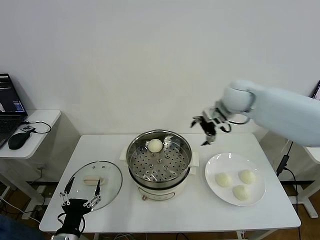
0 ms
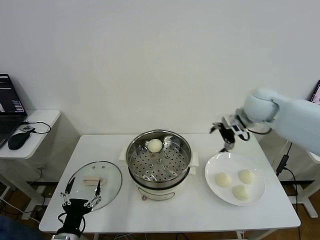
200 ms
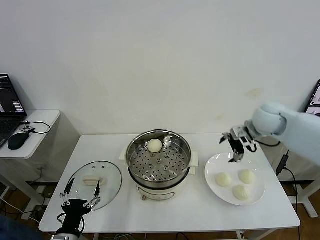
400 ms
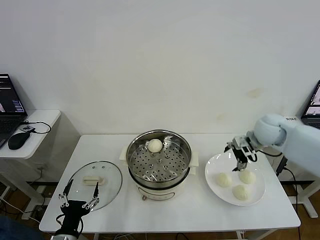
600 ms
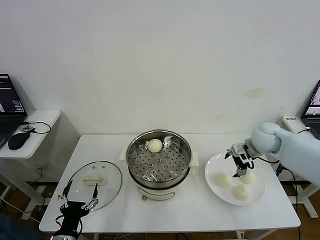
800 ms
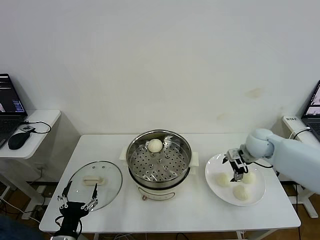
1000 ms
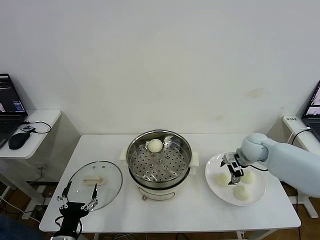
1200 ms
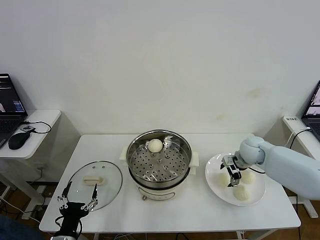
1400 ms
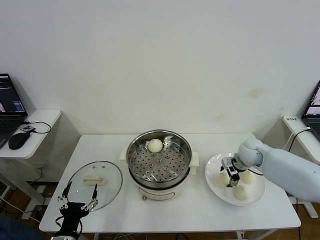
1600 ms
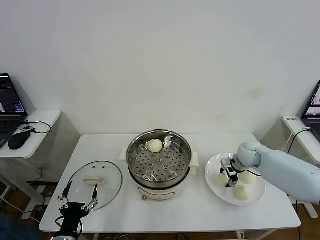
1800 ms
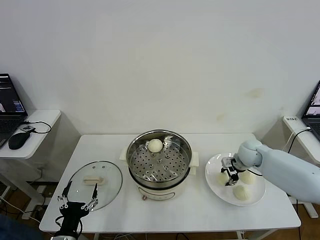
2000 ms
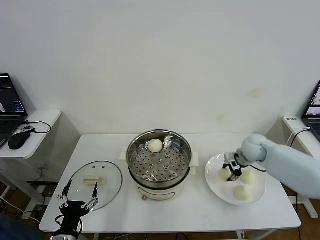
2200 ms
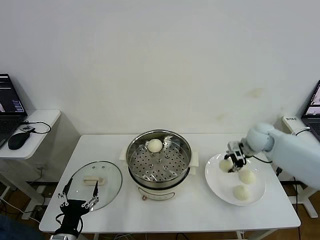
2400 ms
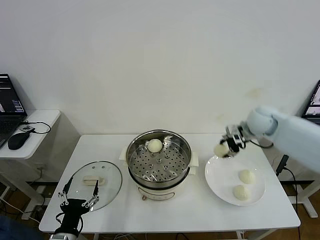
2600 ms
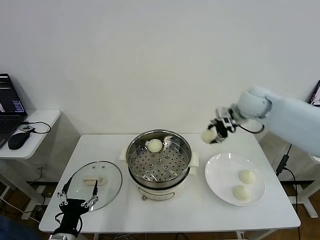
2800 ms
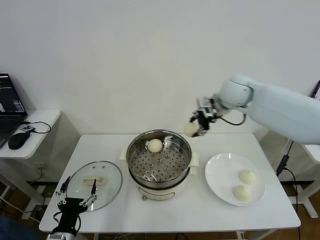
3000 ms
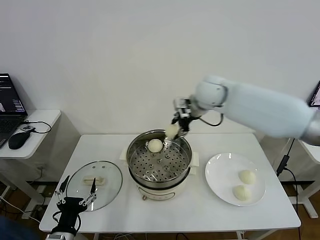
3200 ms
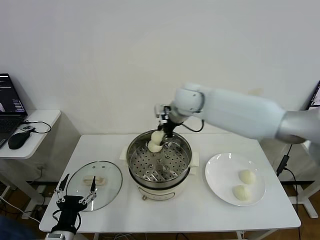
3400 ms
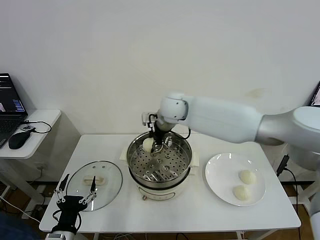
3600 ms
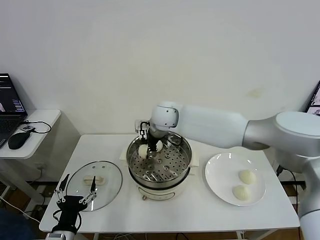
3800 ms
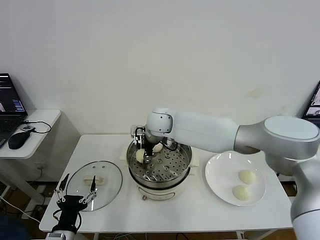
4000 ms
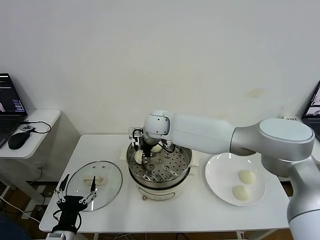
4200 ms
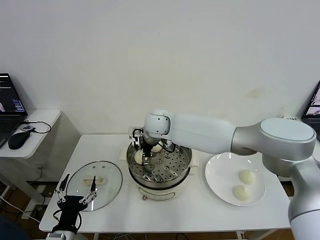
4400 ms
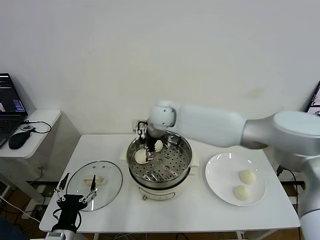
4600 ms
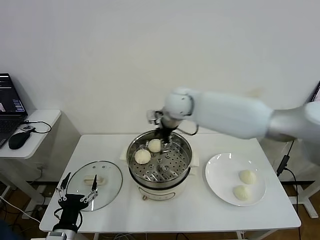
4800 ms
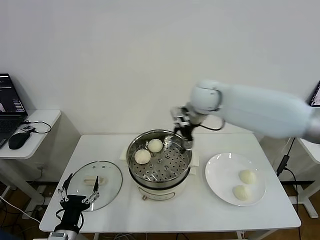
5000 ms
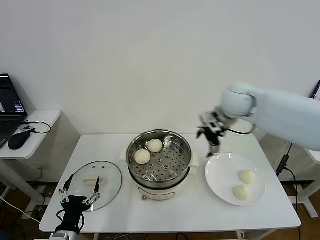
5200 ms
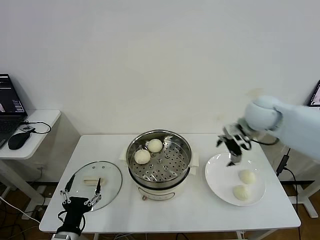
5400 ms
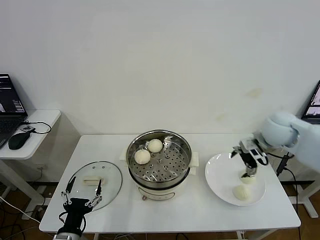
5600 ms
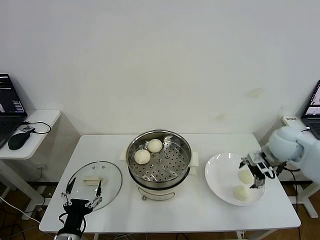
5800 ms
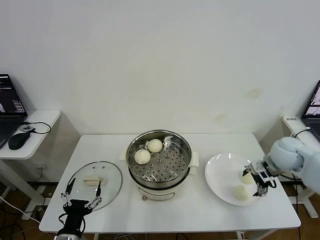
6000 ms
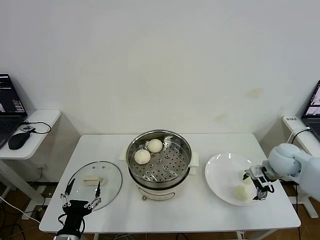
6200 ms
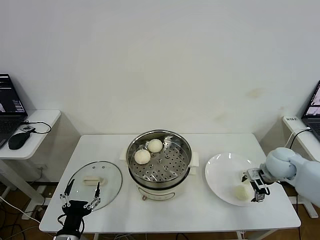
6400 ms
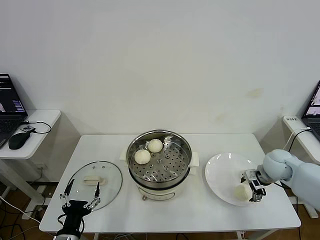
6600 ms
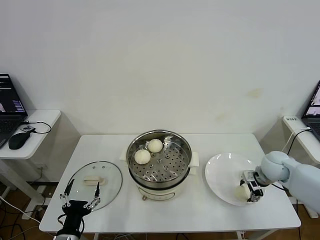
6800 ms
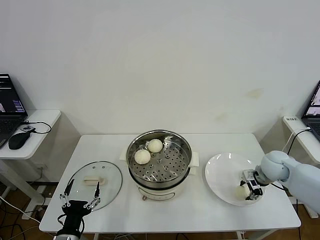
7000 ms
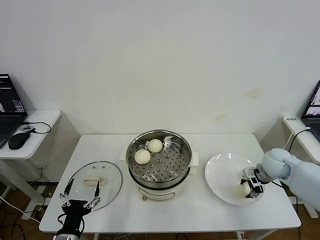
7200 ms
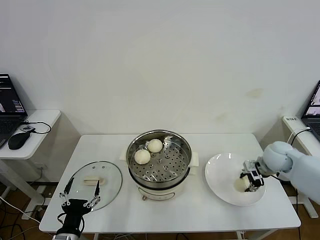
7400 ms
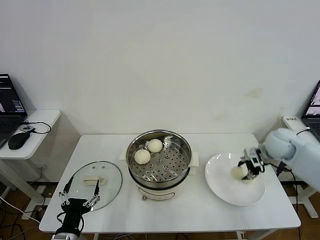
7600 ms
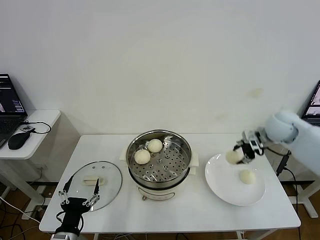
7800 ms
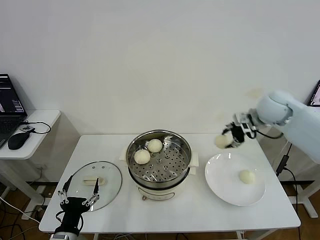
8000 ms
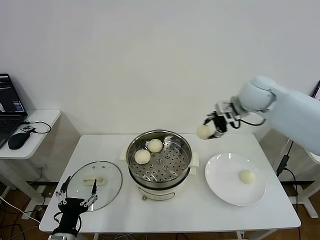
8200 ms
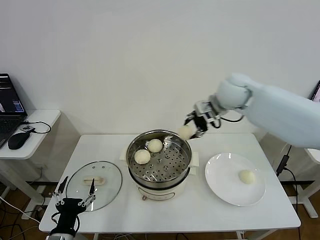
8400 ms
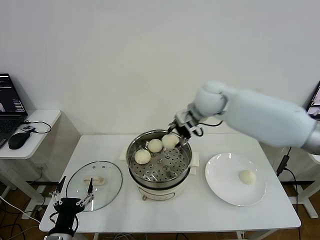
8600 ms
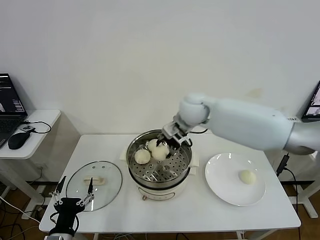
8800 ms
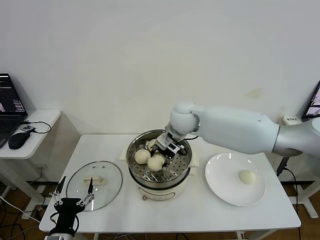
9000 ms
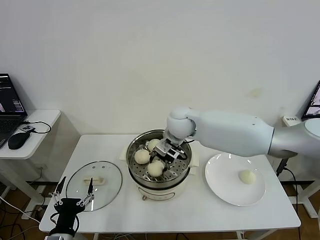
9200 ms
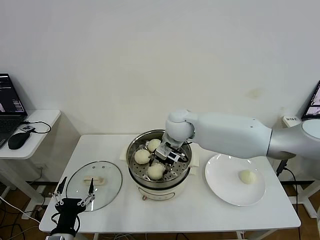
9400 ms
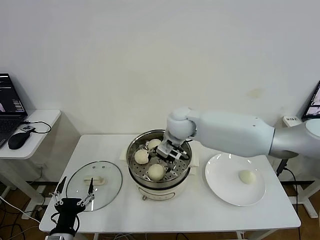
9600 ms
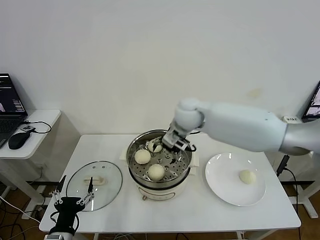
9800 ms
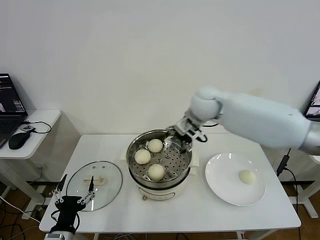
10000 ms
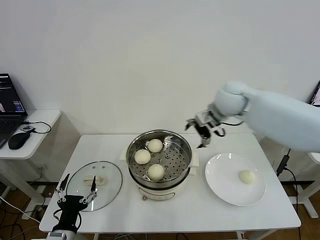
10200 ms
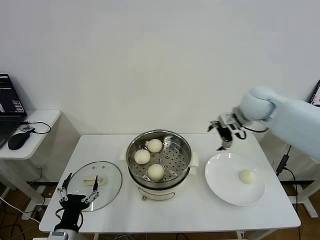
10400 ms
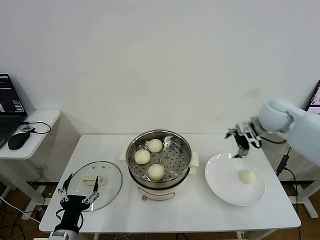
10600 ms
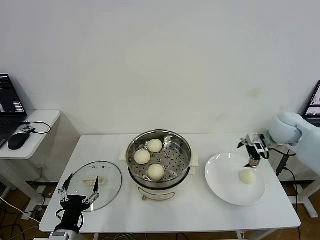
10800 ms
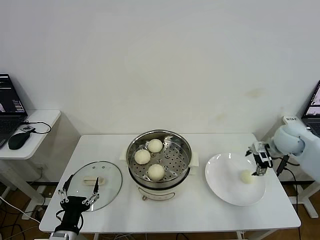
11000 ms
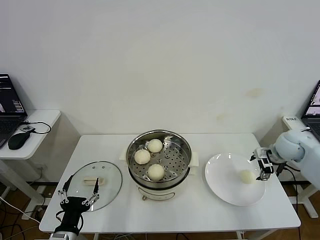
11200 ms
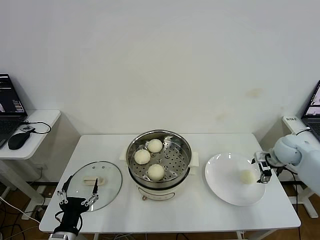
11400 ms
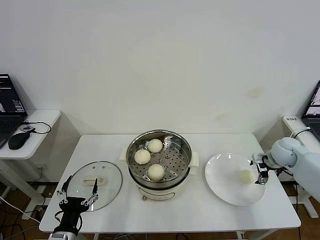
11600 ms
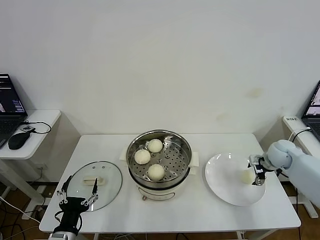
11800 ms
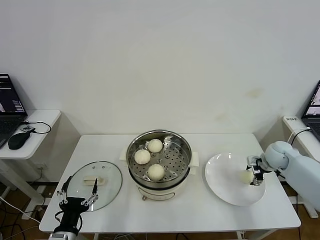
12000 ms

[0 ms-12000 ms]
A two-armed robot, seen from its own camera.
Step, 0 ms to 1800 ms: Grasp the baozi in the plate with right gripper.
Step, 2000 ms to 4400 ms: Place the baozi on the steamer with right gripper.
Step, 4600 ms to 7200 ms: Grasp the baozi in the plate with right gripper.
Step, 7400 ms to 9600 ms: Place the baozi on the steamer with right gripper.
0 ms to 1600 ms: The right gripper moves downward, about 20 cm, and closes.
1600 ms to 3000 ms: The right gripper moves upward and to the left, some 30 cm, and closes its fingers.
3000 ms to 4400 ms: The right gripper is displaced to the left and downward by roughly 20 cm, and opens its fingers.
4400 ms to 6000 ms: The right gripper moves to the right, some 40 cm.
6000 ms to 7600 ms: The right gripper is displaced forward by roughly 5 cm, and closes its fingers.
7600 ms to 9000 ms: The right gripper heads to the left, covering roughly 30 cm.
9000 ms to 10400 ms: The right gripper shifts about 25 cm to the right, and opens up.
10400 ms to 12000 ms: The right gripper moves downward and to the right, roughly 25 cm, and closes.

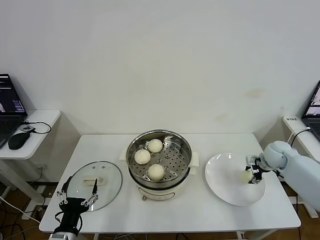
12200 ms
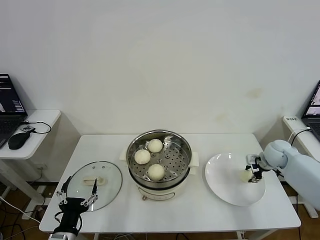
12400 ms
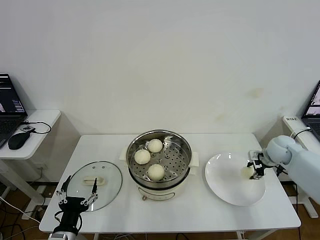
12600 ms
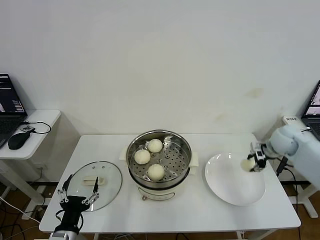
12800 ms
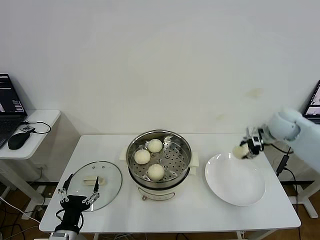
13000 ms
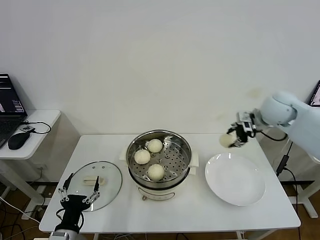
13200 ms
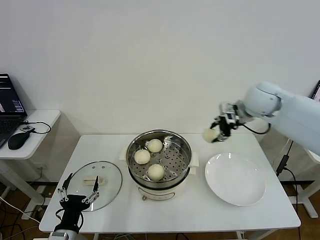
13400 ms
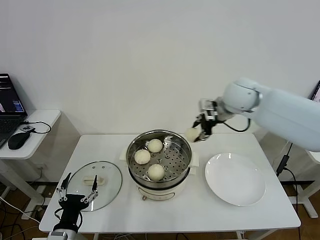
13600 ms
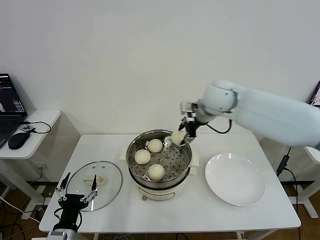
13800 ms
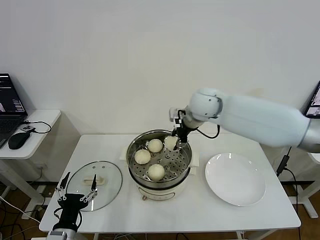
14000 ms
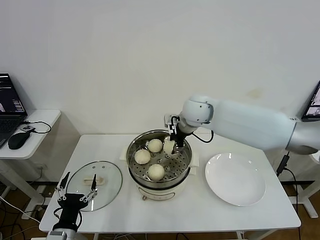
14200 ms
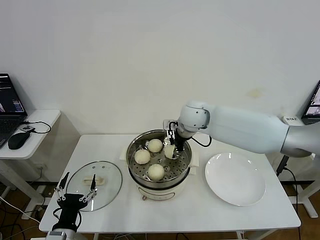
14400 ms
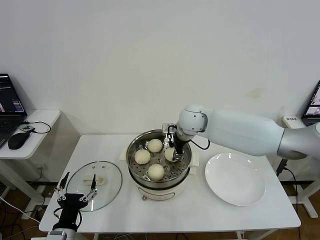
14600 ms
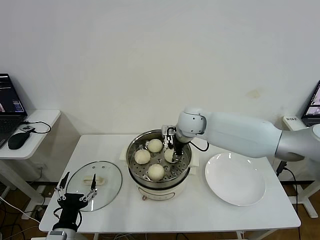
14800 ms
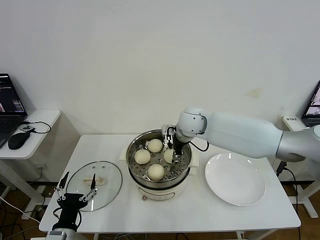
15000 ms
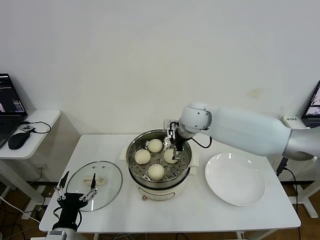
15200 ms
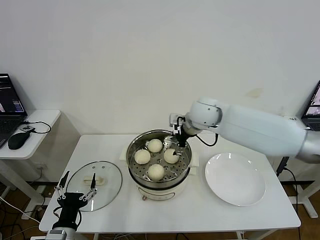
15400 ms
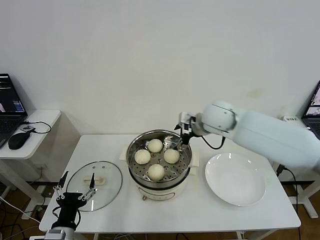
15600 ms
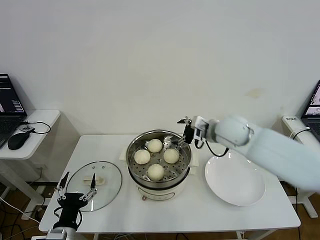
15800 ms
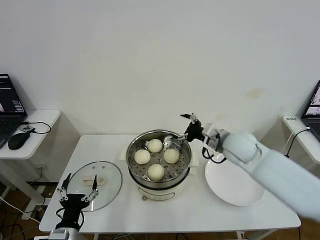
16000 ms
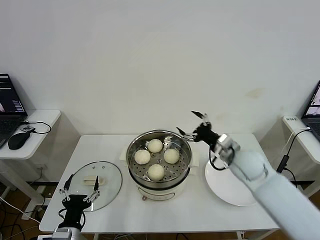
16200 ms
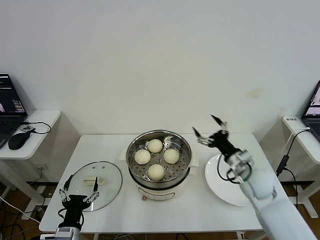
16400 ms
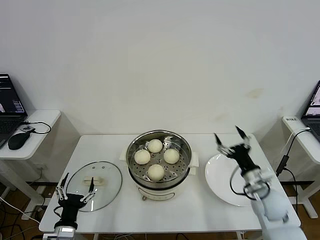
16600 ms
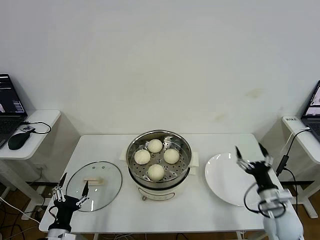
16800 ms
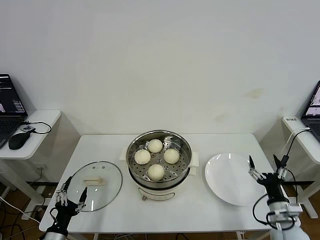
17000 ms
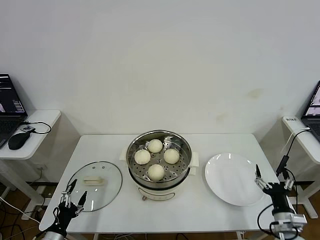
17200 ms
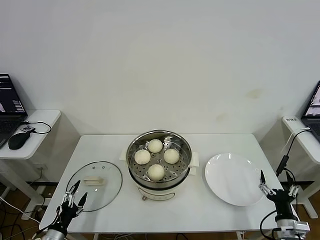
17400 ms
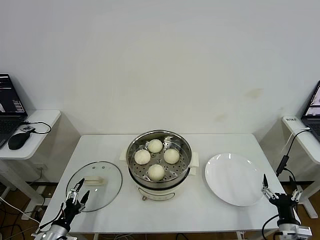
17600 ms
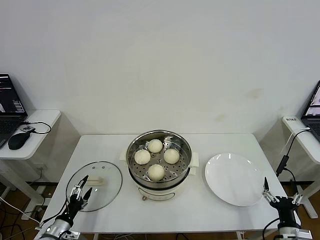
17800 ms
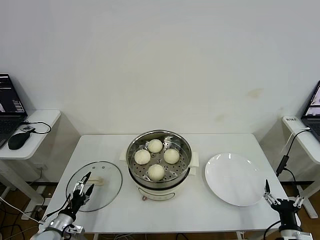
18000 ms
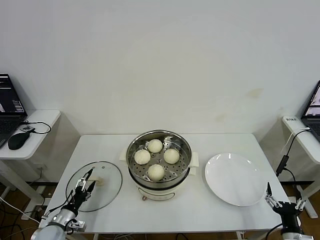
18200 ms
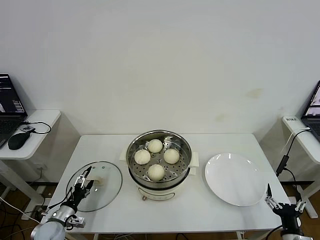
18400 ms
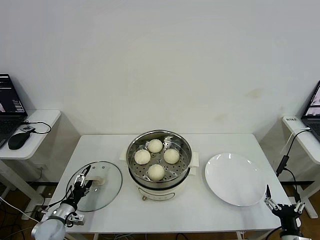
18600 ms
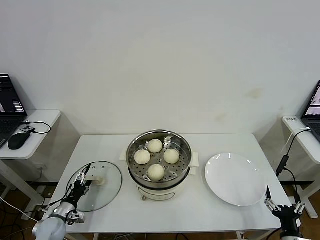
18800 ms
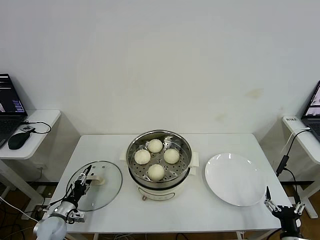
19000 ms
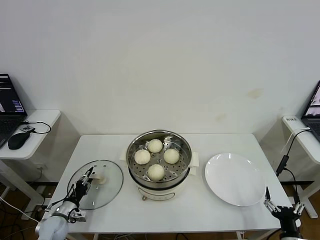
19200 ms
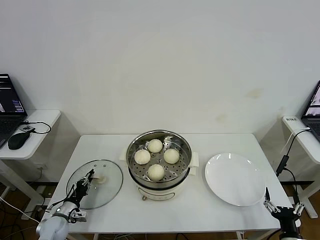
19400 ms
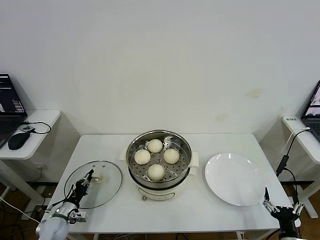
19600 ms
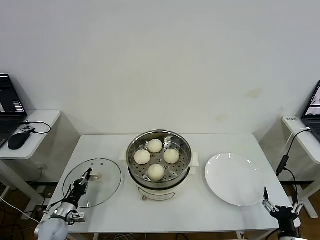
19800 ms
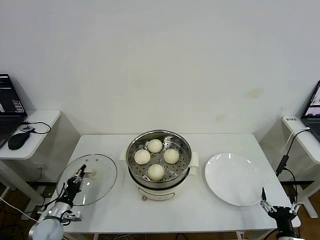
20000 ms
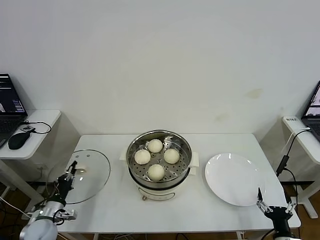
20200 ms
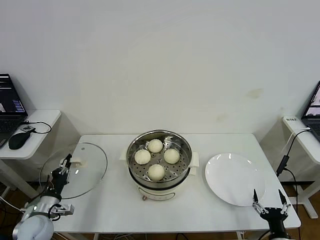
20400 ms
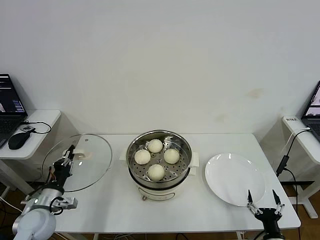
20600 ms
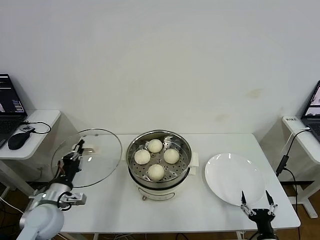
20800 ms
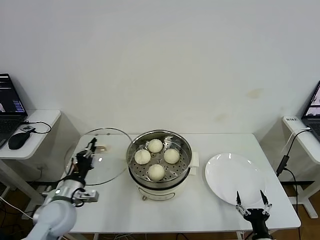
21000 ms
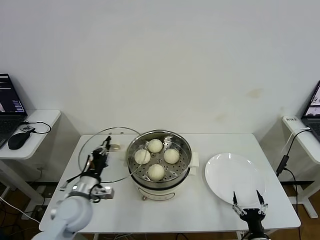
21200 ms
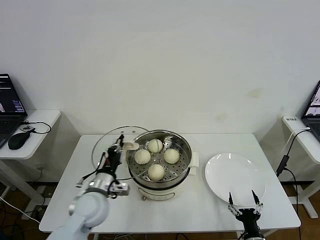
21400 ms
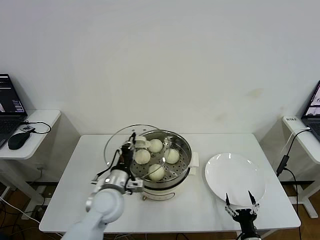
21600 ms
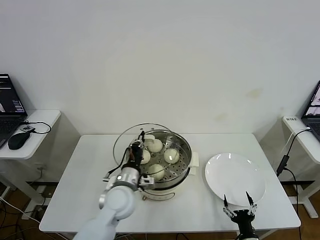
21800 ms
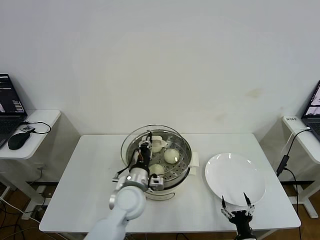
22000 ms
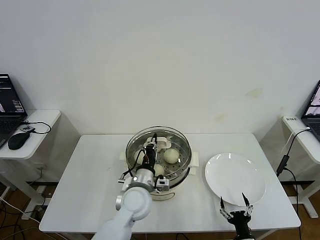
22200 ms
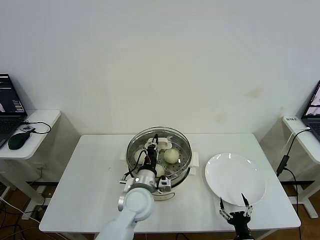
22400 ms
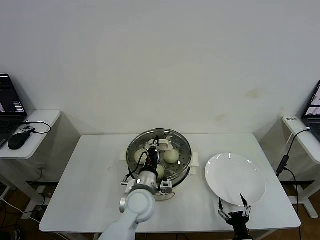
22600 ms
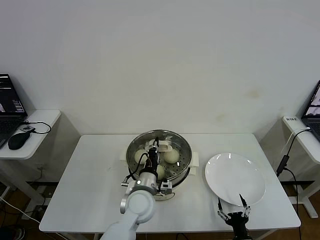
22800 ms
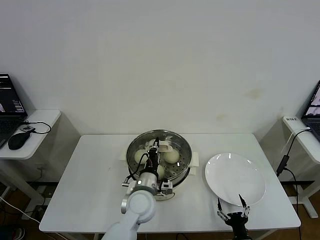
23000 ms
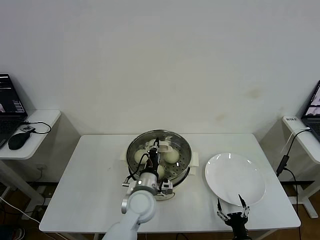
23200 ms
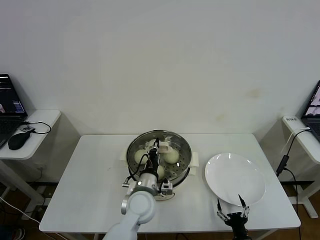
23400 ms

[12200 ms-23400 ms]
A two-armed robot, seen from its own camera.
Step, 12600 ms to 15000 ms: Place the baozi on the steamer with right gripper.
Step, 15200 ms to 19600 ms: Grasp the pot lid with left gripper.
12200 ms to 13800 ms: The right gripper heads to the left and upward, covering some 35 cm.
13800 ms to 15400 ms: The right gripper opens.
15400 ms to 17000 ms: The right gripper travels backward, downward and to the right by roughly 50 cm; the left gripper is displaced to the left and downward by approximately 10 cm.
17000 ms to 18600 ms: The right gripper heads backward and downward, covering some 10 cm, while the left gripper is displaced forward and downward by some 15 cm.
18600 ms to 20200 ms: The left gripper closes.
20200 ms to 21800 ms: The left gripper goes roughly 30 cm to the right and upward. The right gripper moves to the left, approximately 10 cm.
21800 ms to 23400 ms: The left gripper travels to the right by roughly 5 cm.
